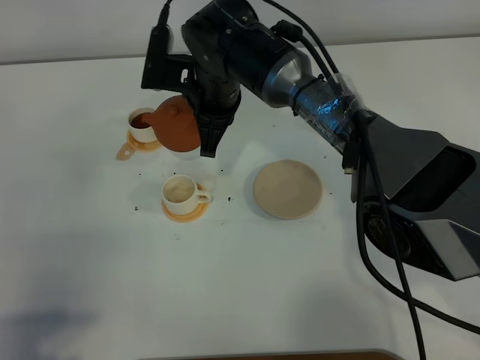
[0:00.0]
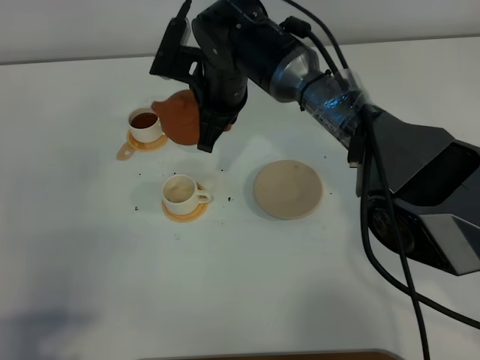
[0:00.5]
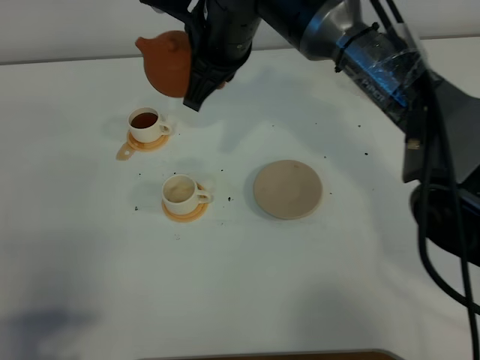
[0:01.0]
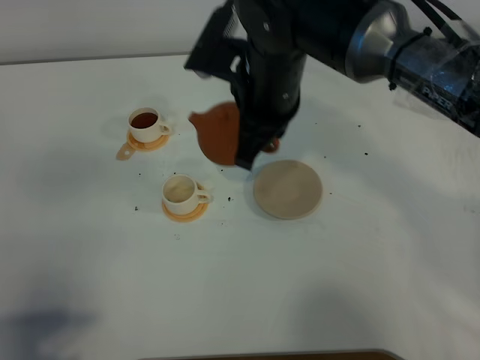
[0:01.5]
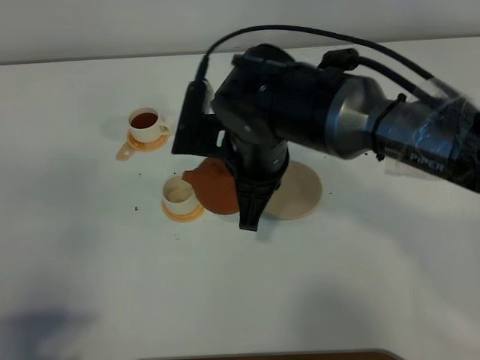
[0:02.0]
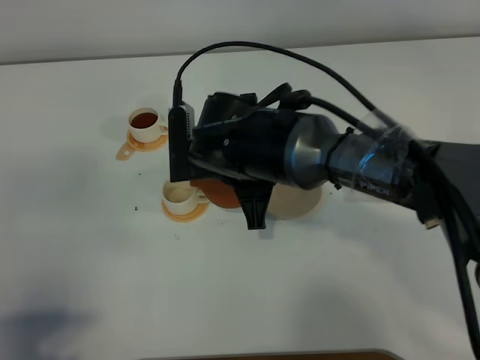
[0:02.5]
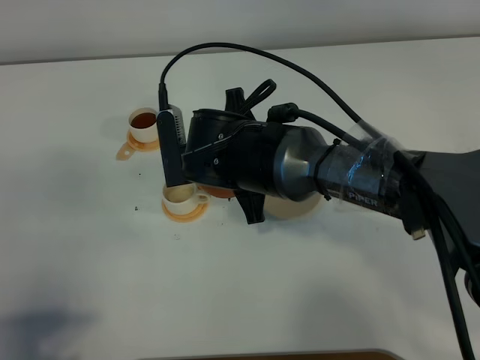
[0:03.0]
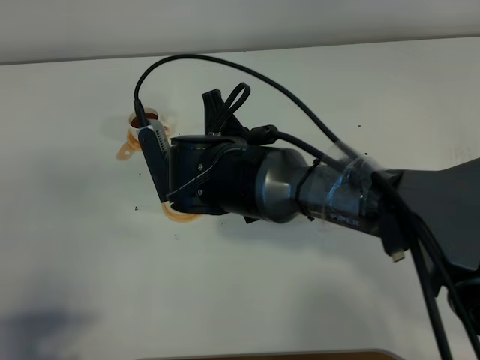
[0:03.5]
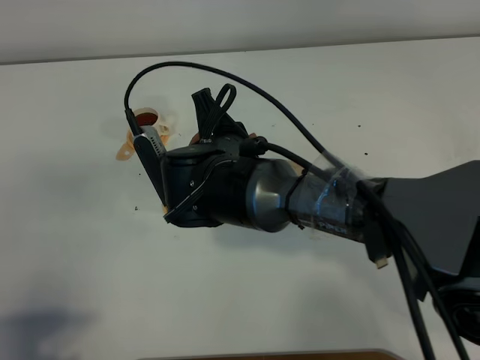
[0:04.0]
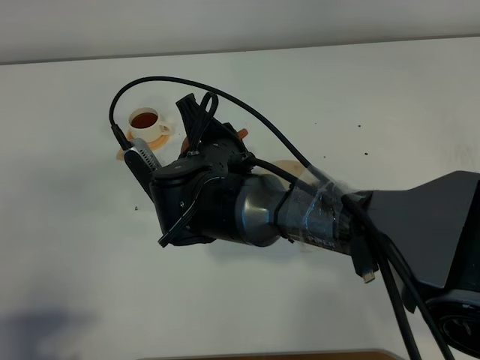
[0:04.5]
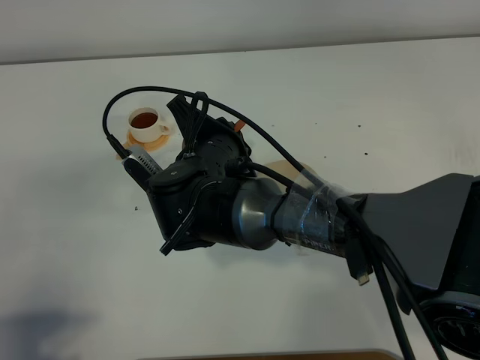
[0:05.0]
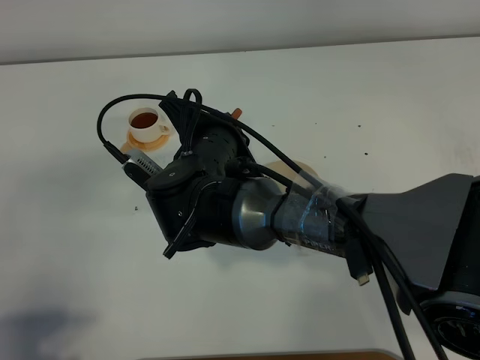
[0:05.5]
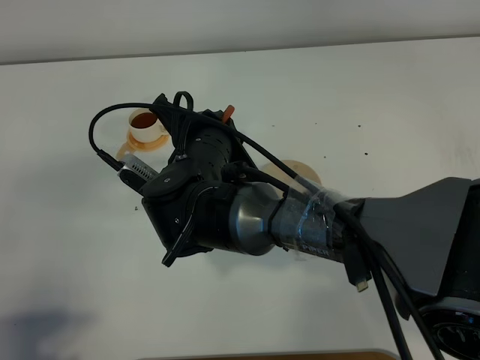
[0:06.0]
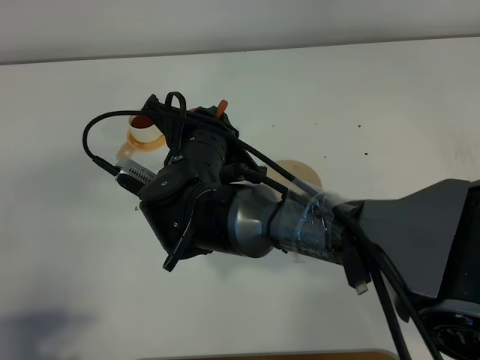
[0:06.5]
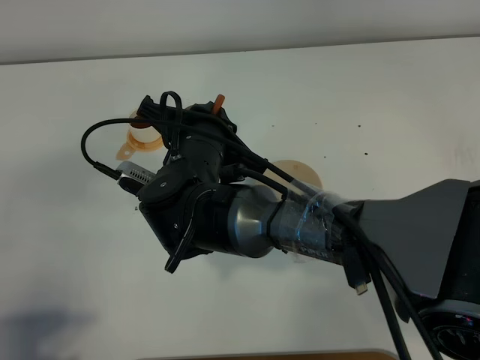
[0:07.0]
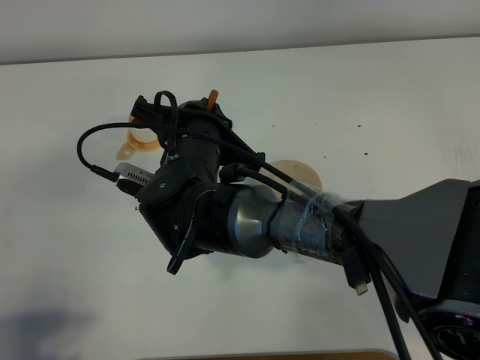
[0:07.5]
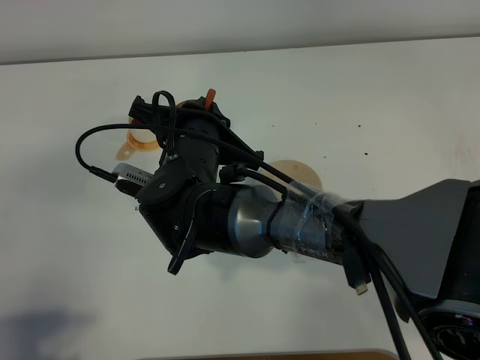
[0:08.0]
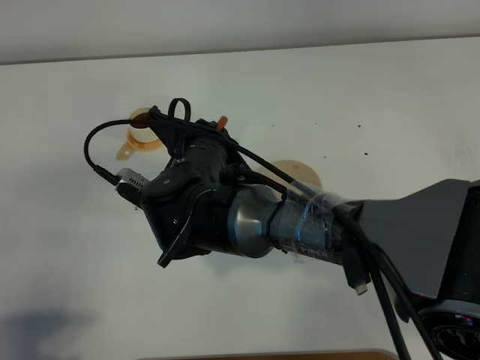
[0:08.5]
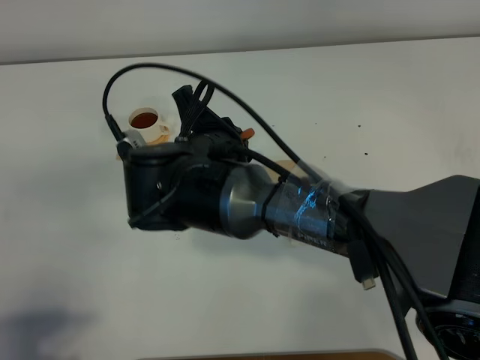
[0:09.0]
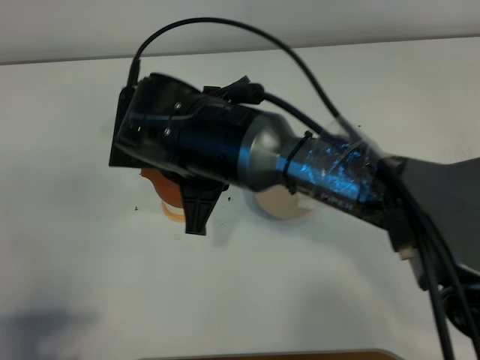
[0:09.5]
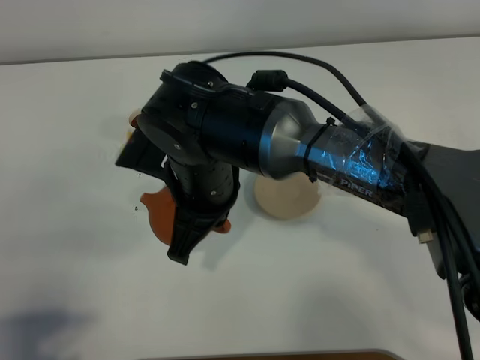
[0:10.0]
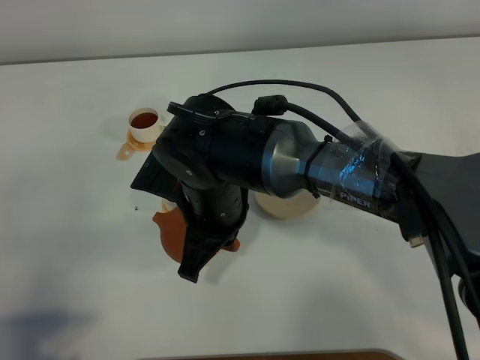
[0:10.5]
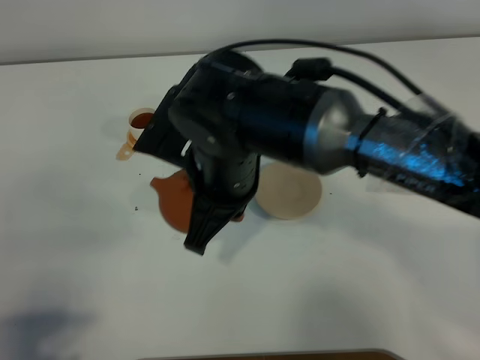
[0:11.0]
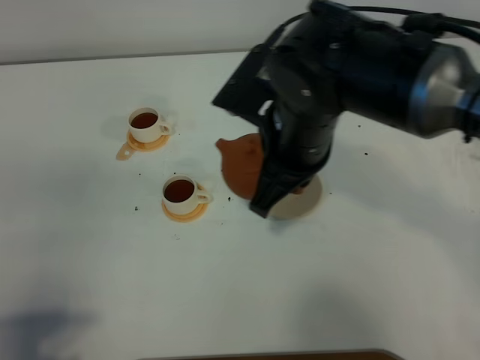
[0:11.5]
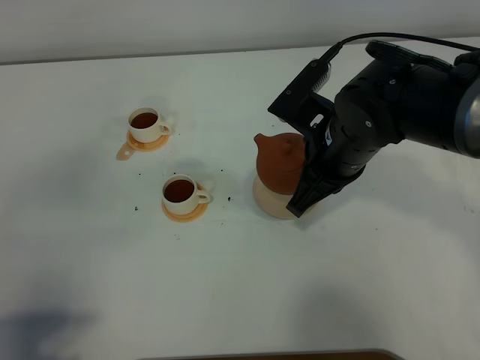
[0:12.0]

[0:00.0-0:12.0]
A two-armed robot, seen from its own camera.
Task of the whole recording: grasp the brown teapot and pour the tea into the two white teacups one by one, put the brown teapot back in its original place.
Step, 0:00.0 to 0:09.5: Pour tea into the teacup with the right gripper.
0:00.0 to 0:02.0: The right gripper goes some 15 cm backward and to the right.
0:02.0 to 0:04.0: The right gripper ends up approximately 5 cm from where it was.
0:06.0 to 0:08.0: The grippers move only a little.
0:10.0 to 0:12.0: The right gripper shifts about 15 cm to the right and forward.

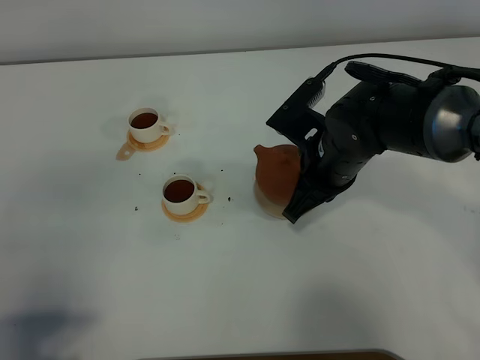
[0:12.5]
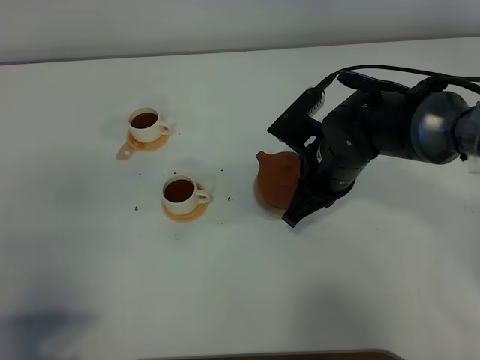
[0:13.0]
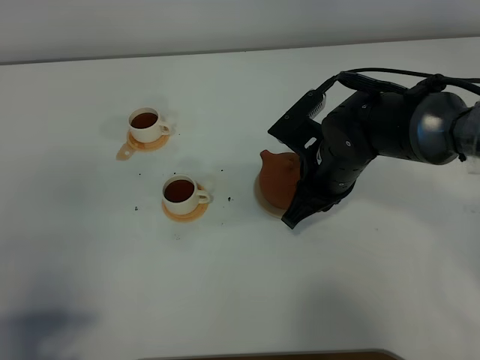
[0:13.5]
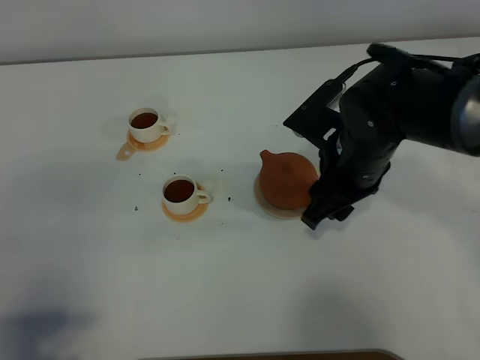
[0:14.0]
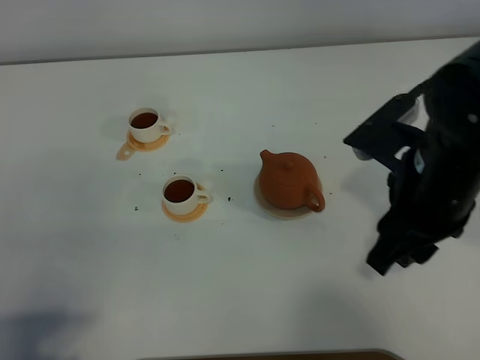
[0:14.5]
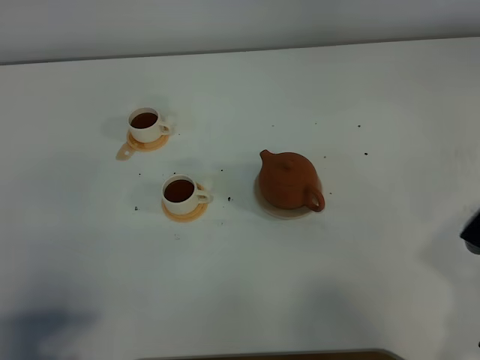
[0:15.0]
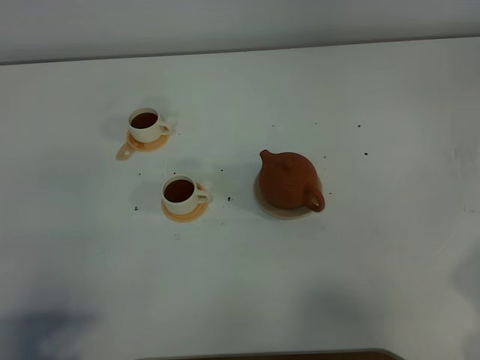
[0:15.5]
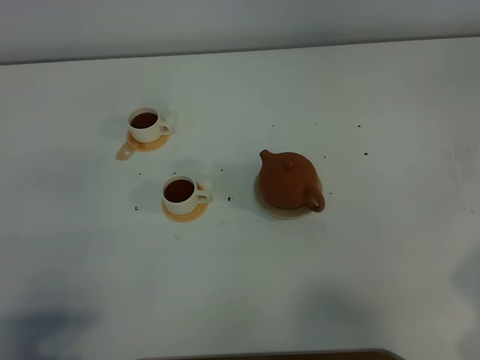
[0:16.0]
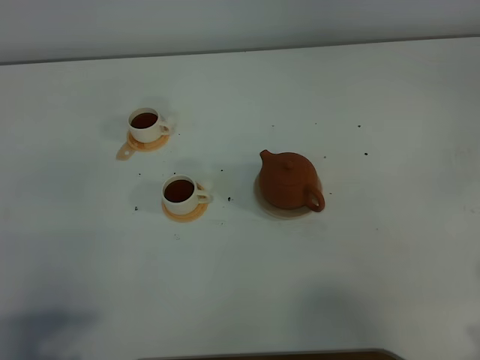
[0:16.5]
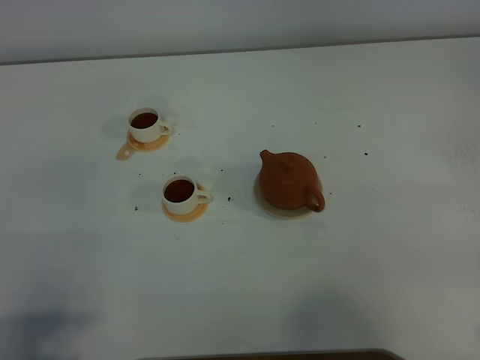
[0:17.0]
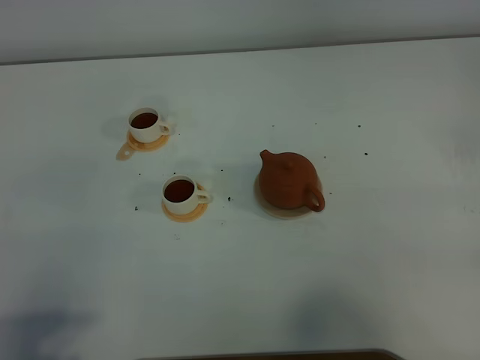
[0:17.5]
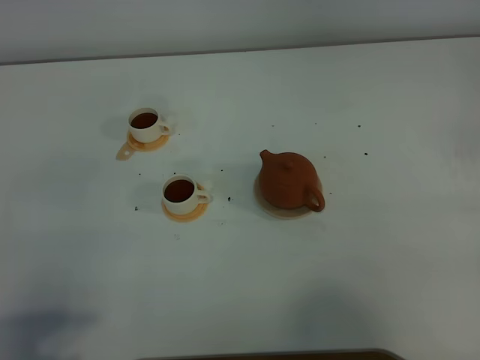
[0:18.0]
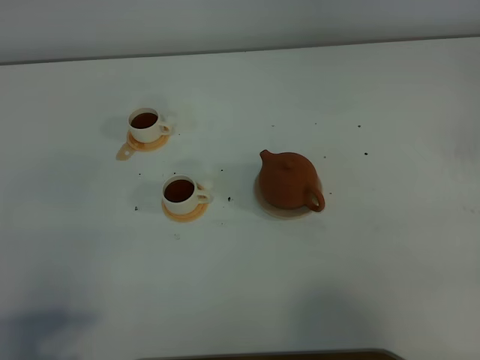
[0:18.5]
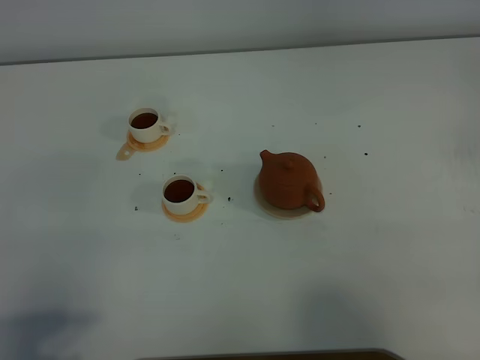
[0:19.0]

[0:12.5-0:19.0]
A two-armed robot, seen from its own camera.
Task of the whole recording: grasp the brown teapot and pour the tea into the two white teacups one by one, put the brown teapot back in its original place.
0:12.5 to 0:14.5: The right gripper is displaced to the right, upward and backward by some 15 cm, and opens.
0:14.5 to 0:17.0: The right gripper shifts about 20 cm to the right and backward.
